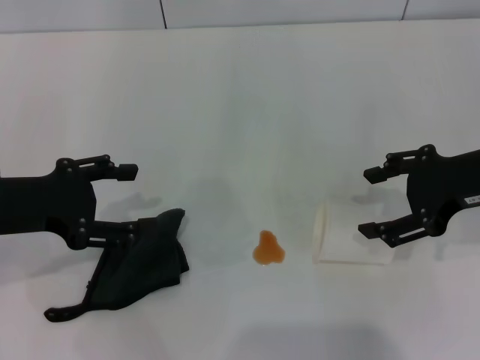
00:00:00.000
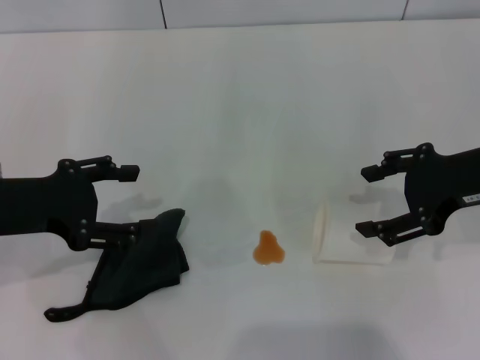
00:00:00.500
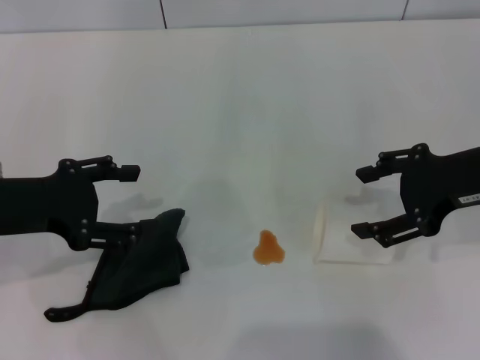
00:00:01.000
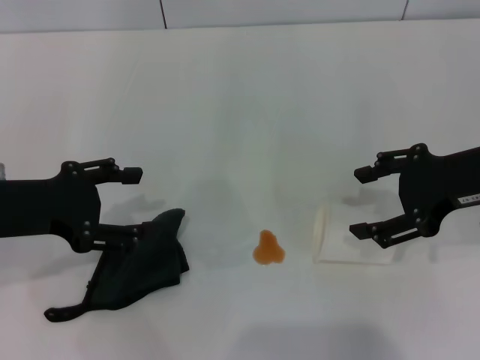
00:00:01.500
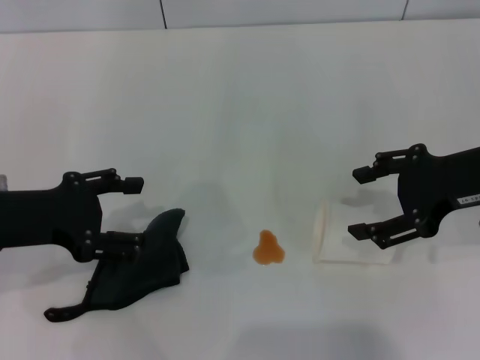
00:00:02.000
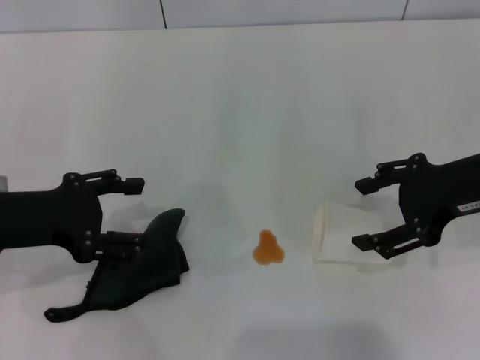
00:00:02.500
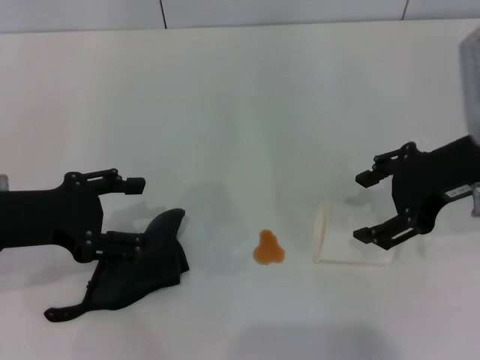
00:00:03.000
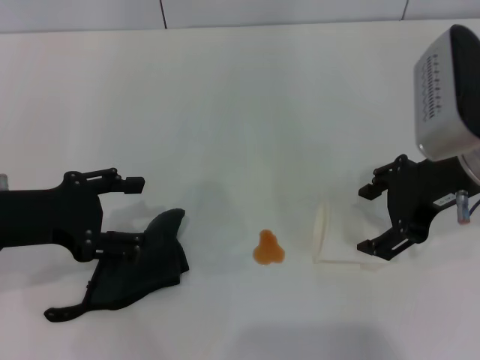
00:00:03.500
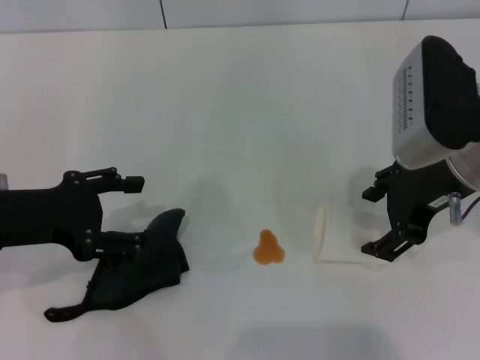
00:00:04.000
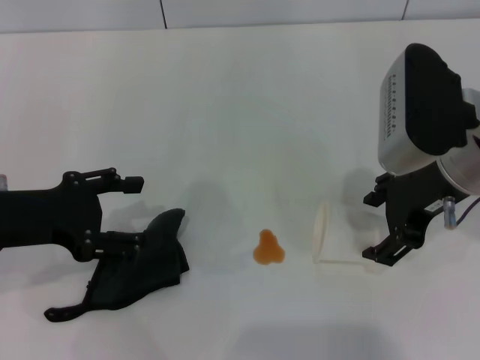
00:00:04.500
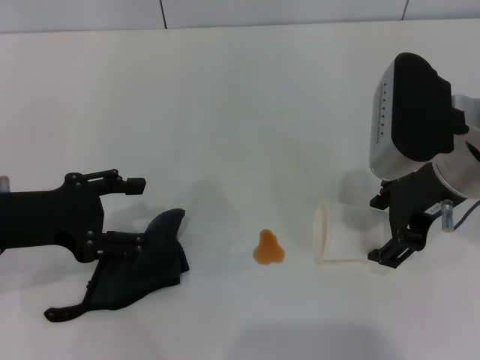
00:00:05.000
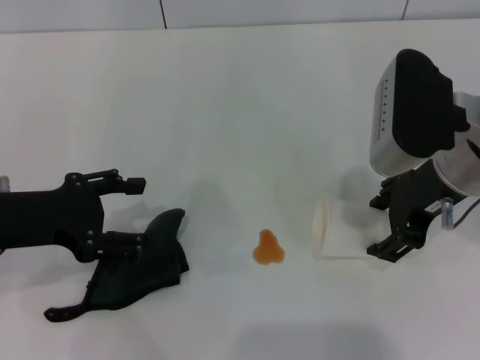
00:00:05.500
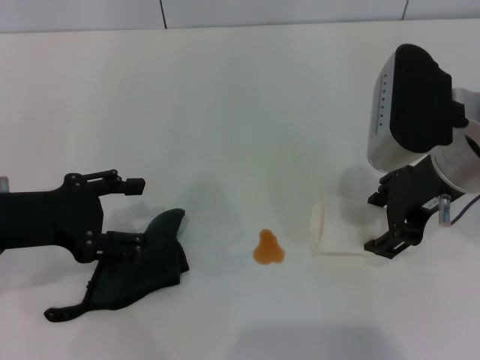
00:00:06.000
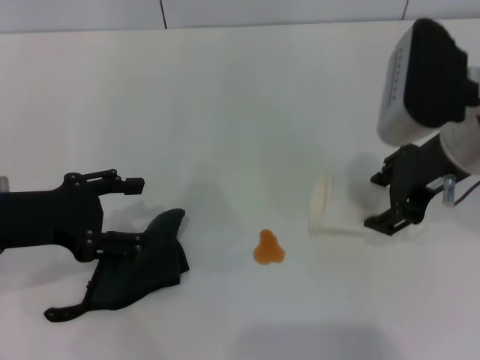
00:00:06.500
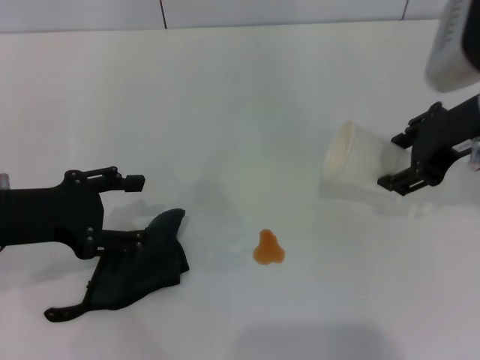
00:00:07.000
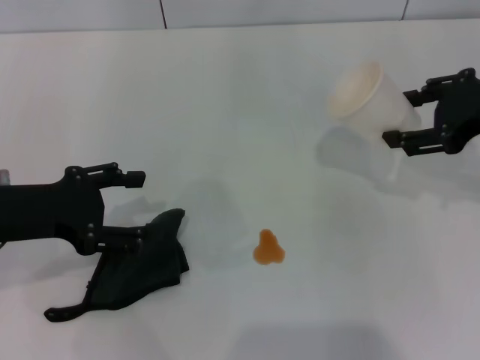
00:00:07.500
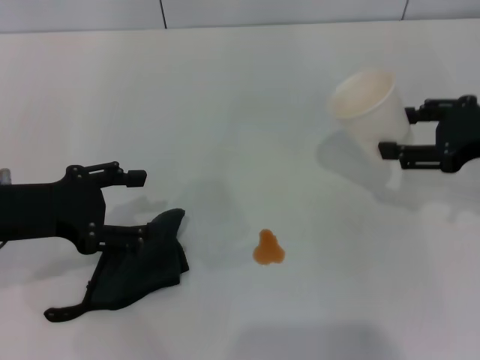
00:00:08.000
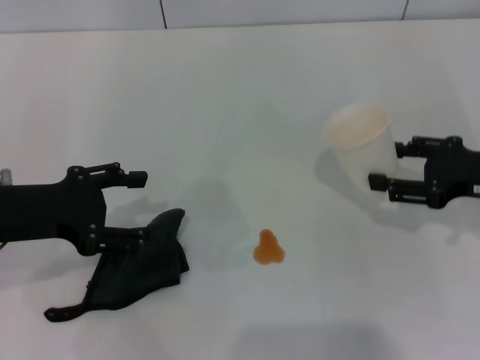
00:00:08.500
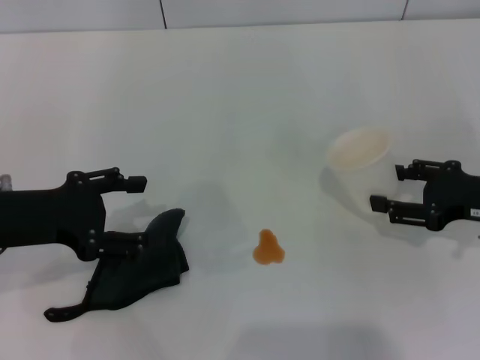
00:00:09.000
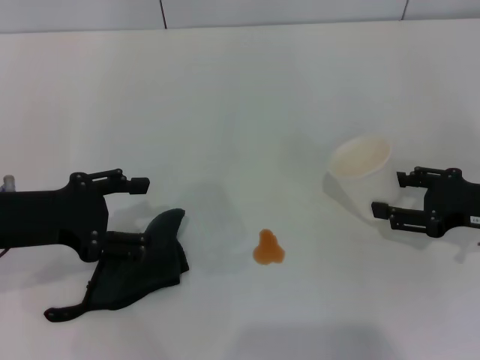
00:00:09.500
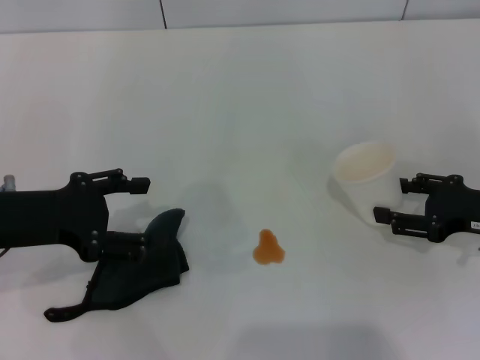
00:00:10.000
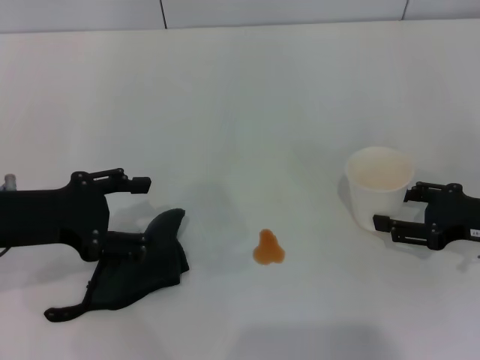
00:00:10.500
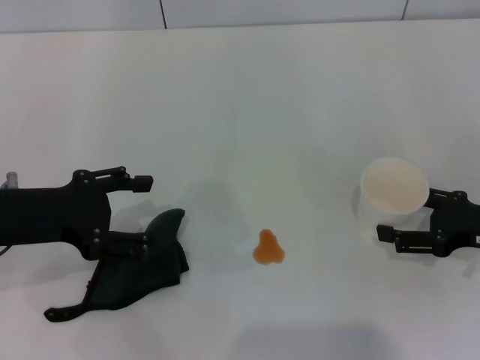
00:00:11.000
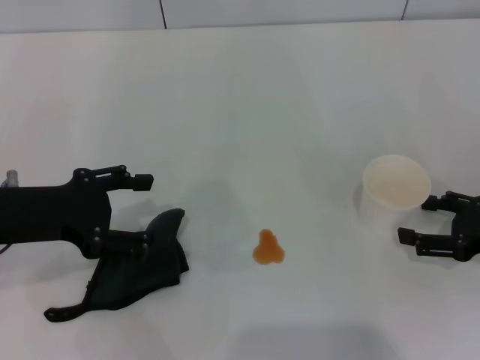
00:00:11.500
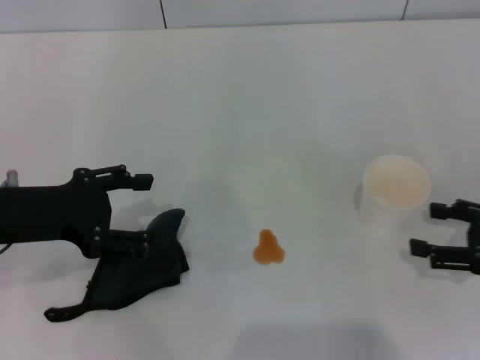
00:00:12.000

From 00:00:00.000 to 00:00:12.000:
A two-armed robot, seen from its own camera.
Step, from 00:00:00.000 to 00:00:05.500: Grasp the paper cup with the right gripper.
Step, from 00:00:06.000 to 00:00:11.500: Stand the paper cup upright with the right gripper.
From 00:00:00.000 to 00:00:02.000: Neither gripper changes place.
From 00:00:02.000 to 00:00:04.000: The right gripper shifts roughly 5 cm to the left.
From 00:00:04.000 to 00:00:06.000: The right gripper closes up.
From 00:00:06.000 to 00:00:08.000: The right gripper goes some 10 cm to the right.
From 00:00:08.000 to 00:00:10.000: The right gripper goes approximately 10 cm downward.
From 00:00:10.000 to 00:00:12.000: The right gripper shifts by about 5 cm, and opens its fingers.

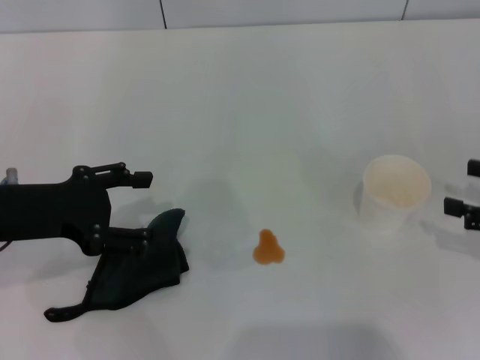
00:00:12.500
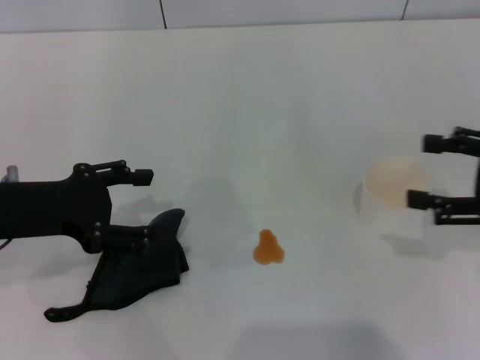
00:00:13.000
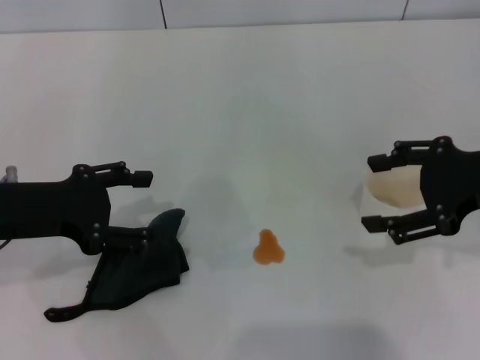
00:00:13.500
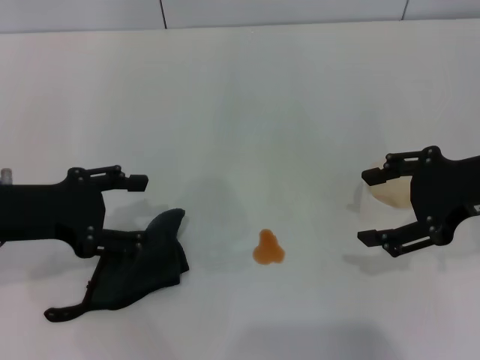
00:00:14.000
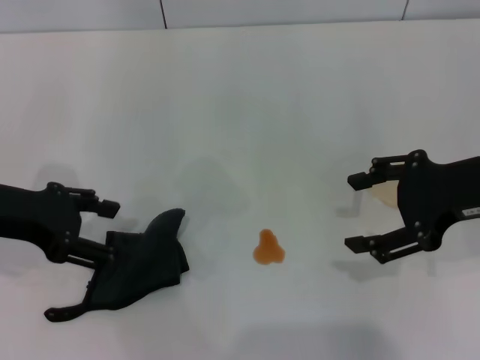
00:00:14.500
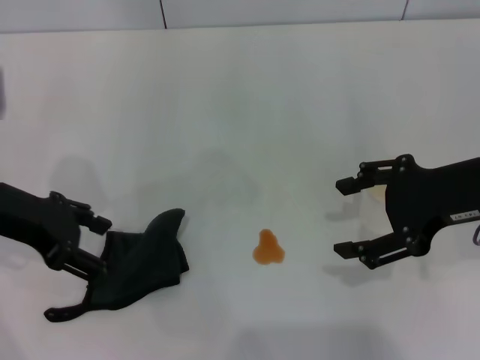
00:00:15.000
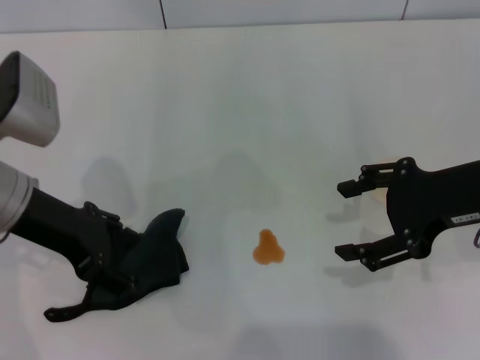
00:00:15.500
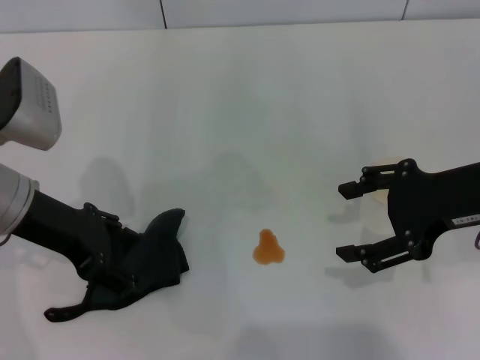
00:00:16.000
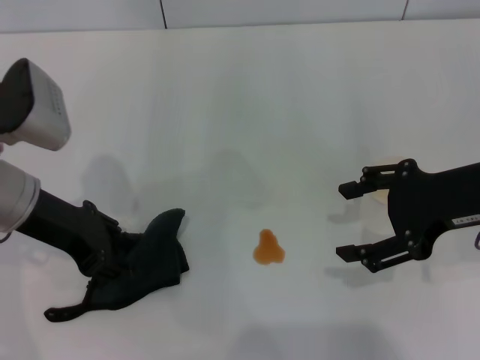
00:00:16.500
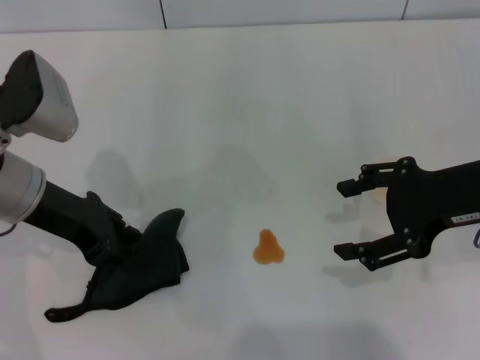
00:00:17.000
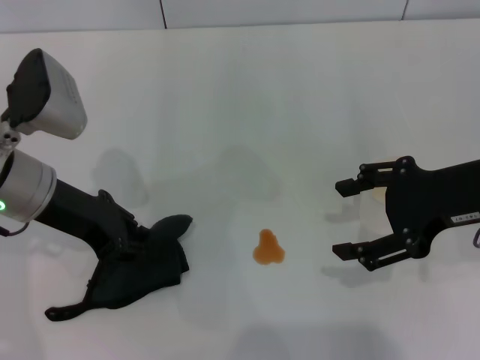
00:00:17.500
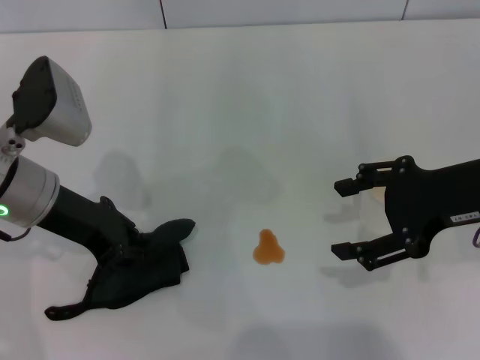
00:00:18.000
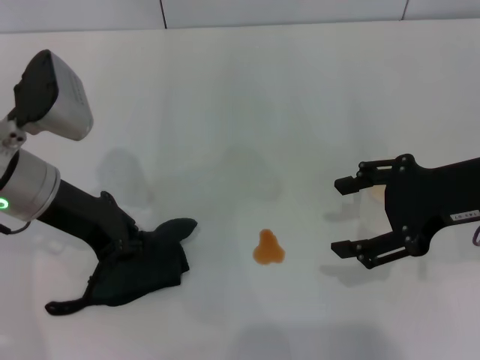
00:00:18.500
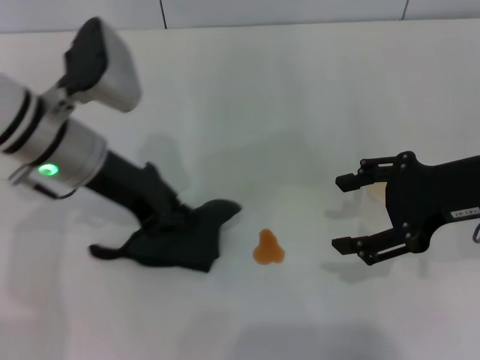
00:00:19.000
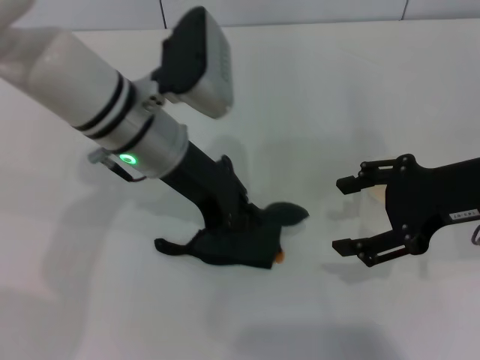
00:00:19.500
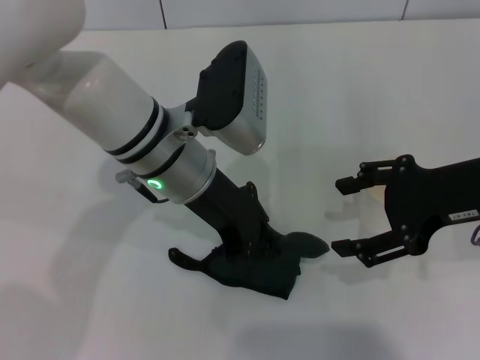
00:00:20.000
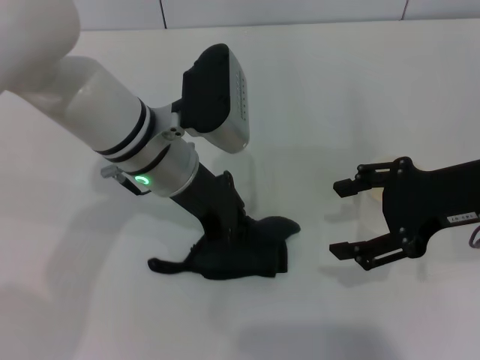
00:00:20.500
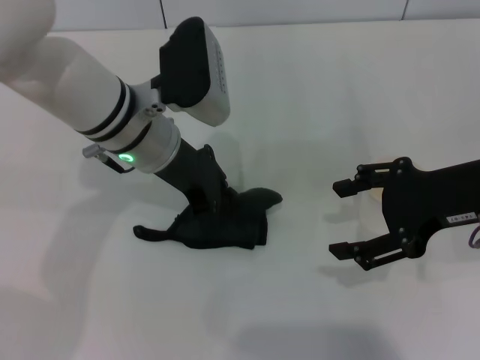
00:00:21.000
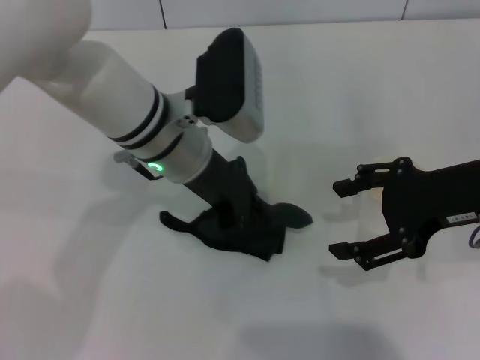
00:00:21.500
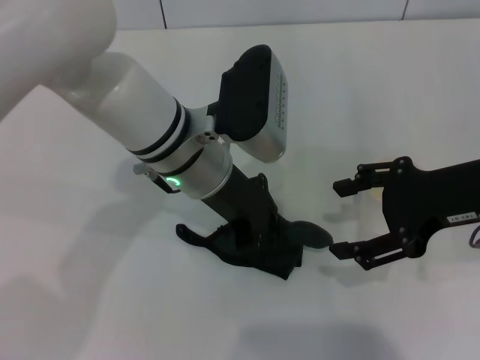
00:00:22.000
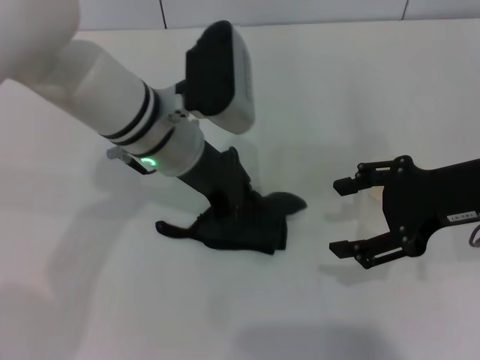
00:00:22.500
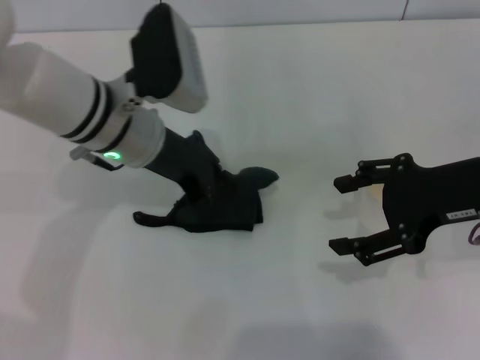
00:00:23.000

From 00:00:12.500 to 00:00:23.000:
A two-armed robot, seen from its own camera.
Step, from 00:00:12.500 to 00:00:17.500: Grasp the rag with the left gripper.
From 00:00:12.500 to 00:00:14.500: The right gripper moves to the left and upward, some 15 cm.
From 00:00:14.500 to 00:00:16.500: The left gripper ends up some 5 cm from where it was.
From 00:00:16.500 to 00:00:19.000: The left gripper goes some 5 cm to the right, and closes.
From 00:00:19.000 to 00:00:21.000: The left gripper is displaced to the right by approximately 5 cm.
From 00:00:21.000 to 00:00:23.000: The grippers move only a little.

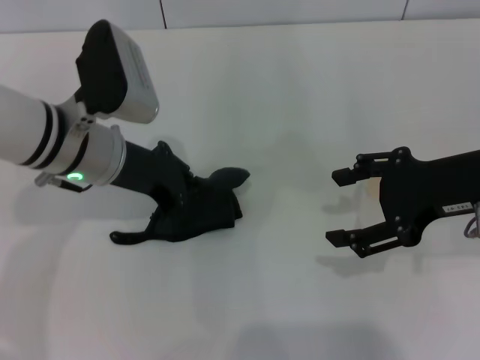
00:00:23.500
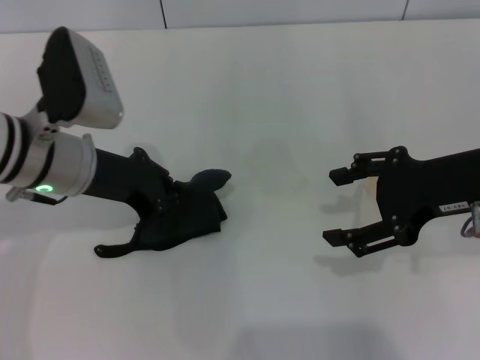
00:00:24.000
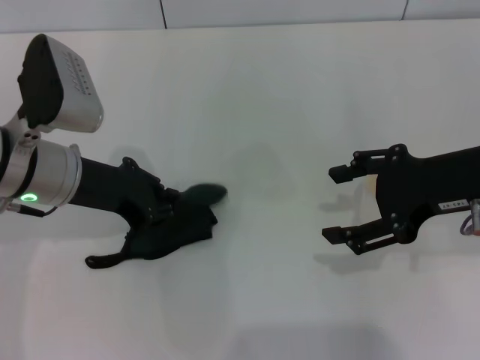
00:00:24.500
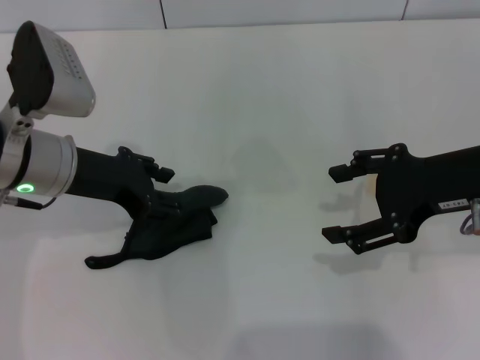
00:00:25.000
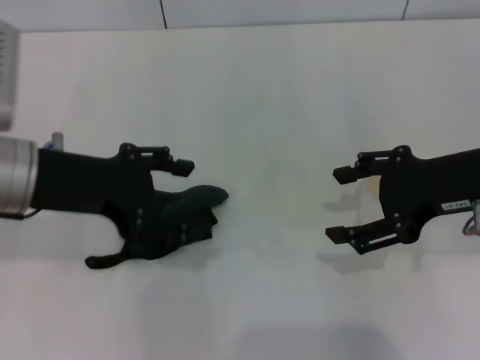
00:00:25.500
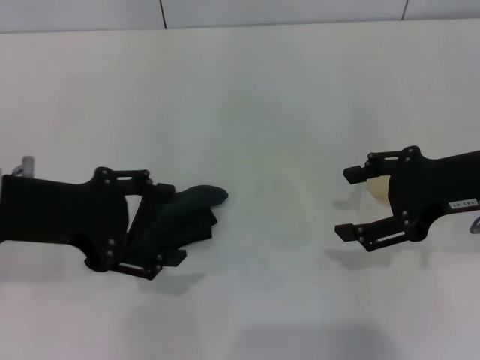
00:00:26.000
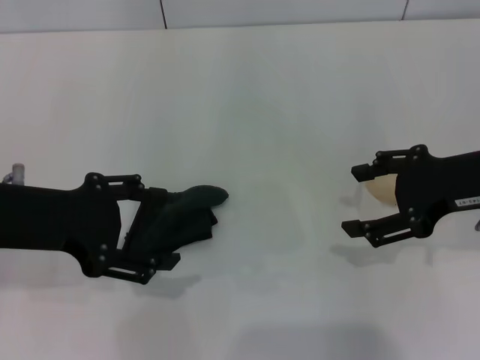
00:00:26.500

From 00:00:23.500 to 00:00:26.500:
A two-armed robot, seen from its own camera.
Step, from 00:00:24.500 to 00:00:25.000: Place the rag on the table with the left gripper.
From 00:00:23.500 to 00:00:25.000: The left gripper opens its fingers.
From 00:00:25.000 to 00:00:26.500: The left gripper goes about 5 cm backward, and opens.
